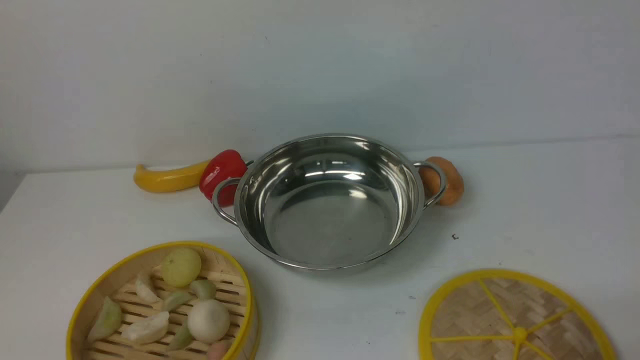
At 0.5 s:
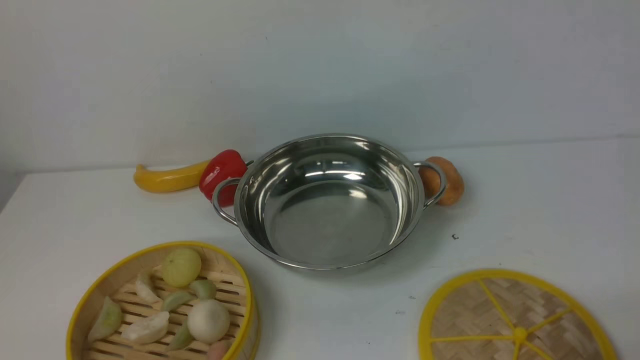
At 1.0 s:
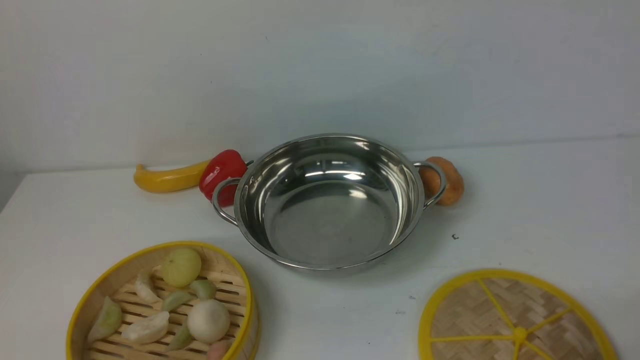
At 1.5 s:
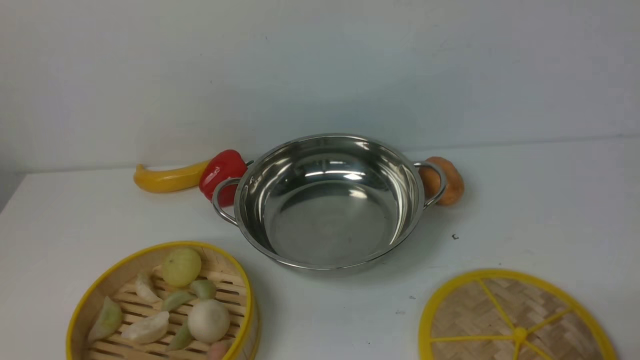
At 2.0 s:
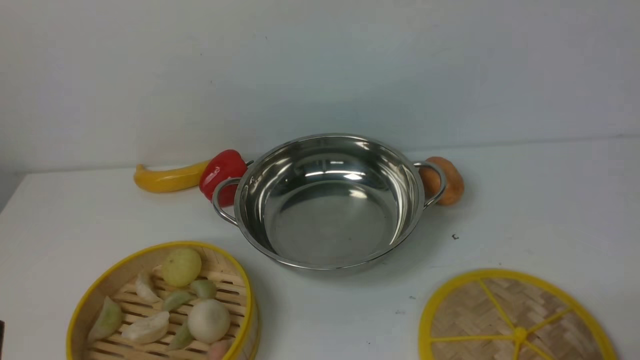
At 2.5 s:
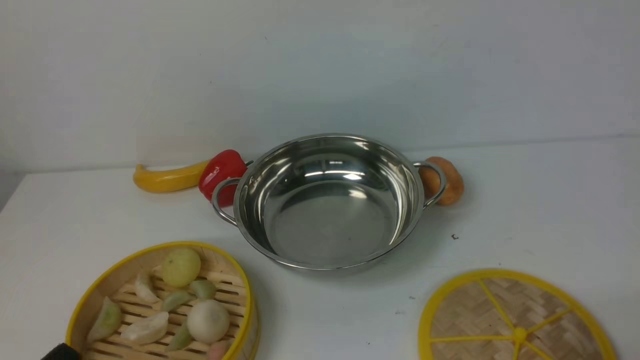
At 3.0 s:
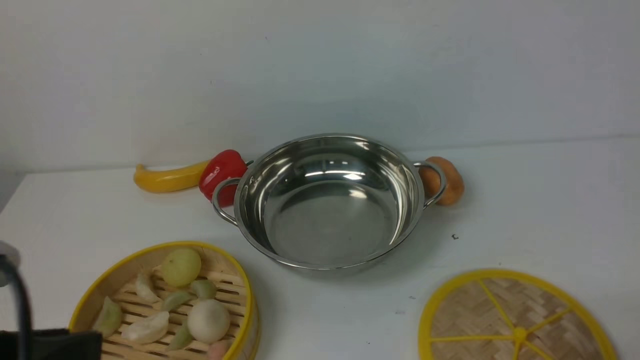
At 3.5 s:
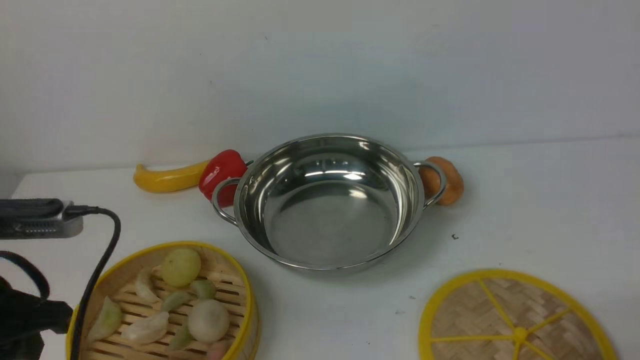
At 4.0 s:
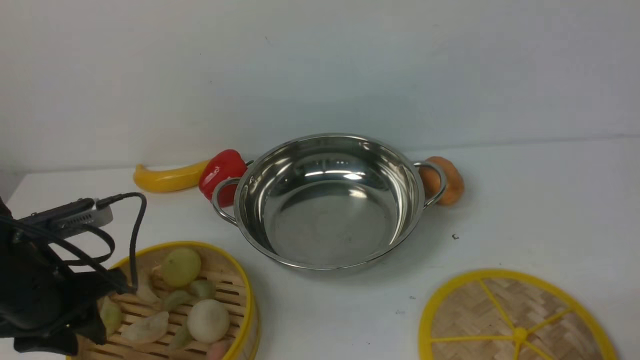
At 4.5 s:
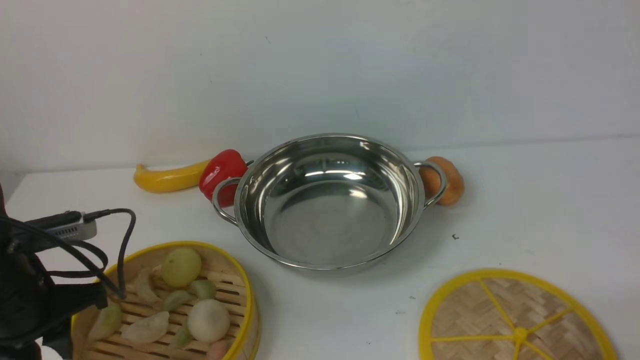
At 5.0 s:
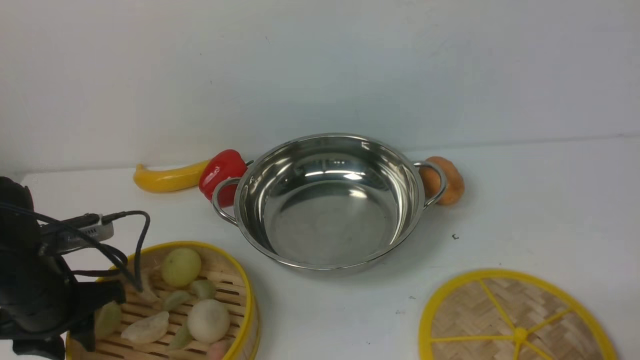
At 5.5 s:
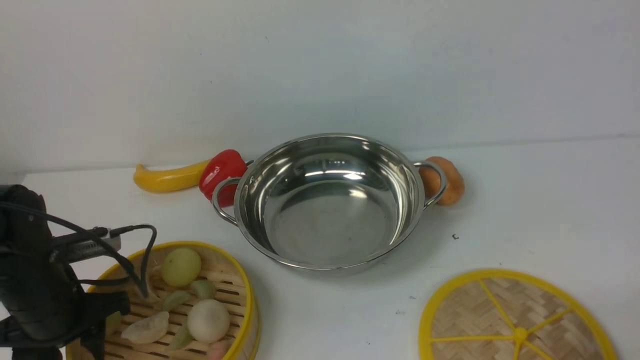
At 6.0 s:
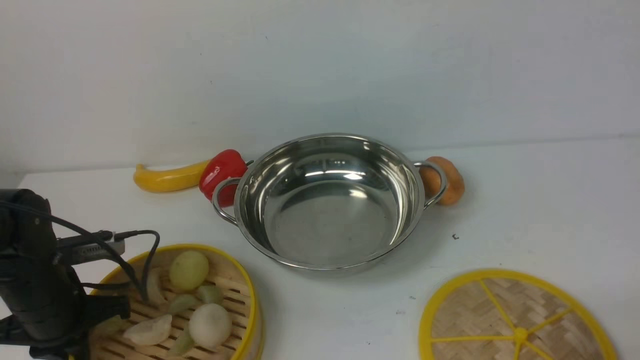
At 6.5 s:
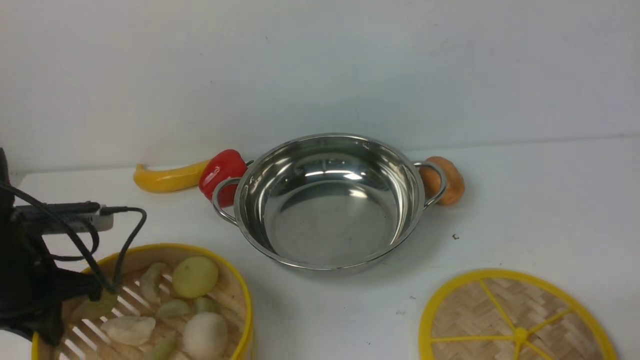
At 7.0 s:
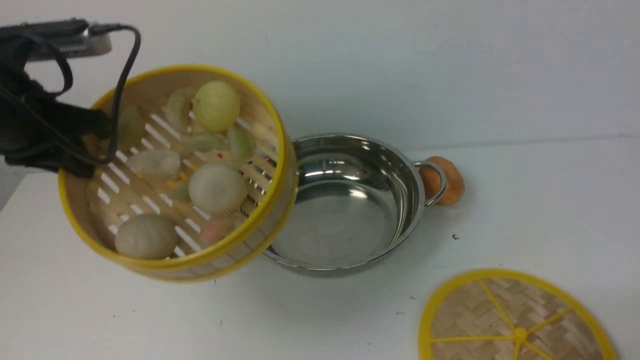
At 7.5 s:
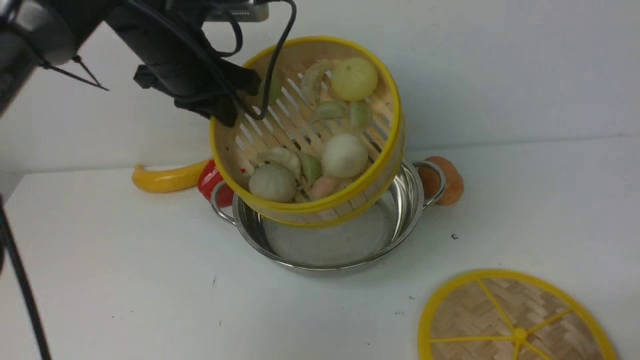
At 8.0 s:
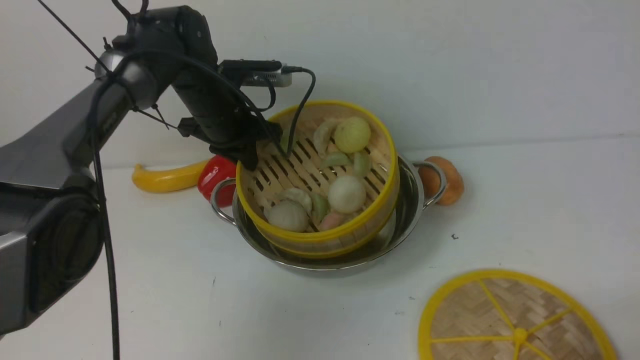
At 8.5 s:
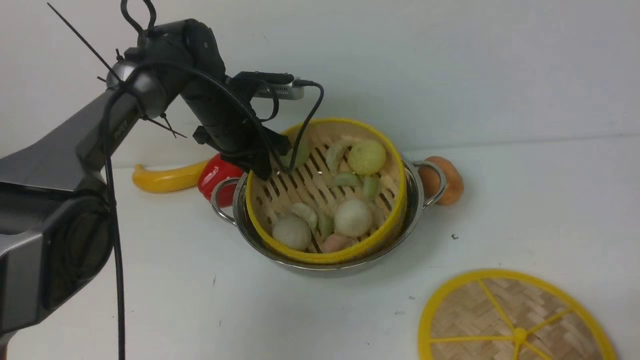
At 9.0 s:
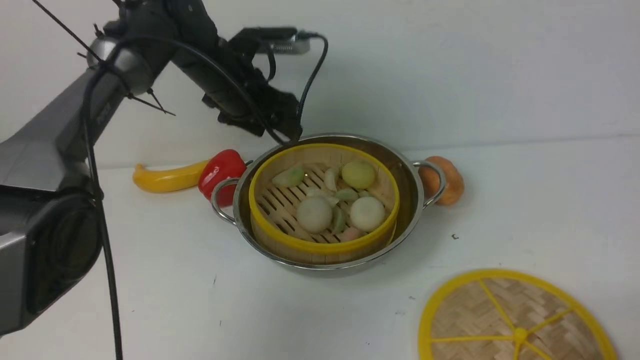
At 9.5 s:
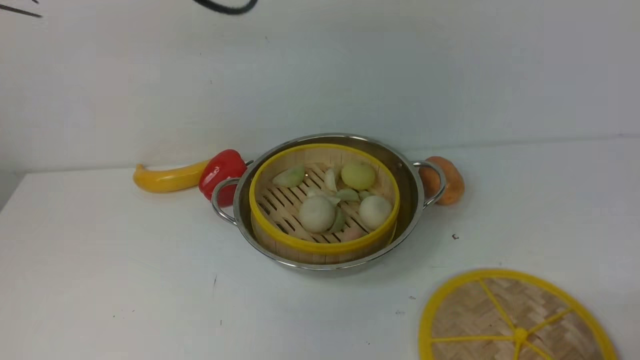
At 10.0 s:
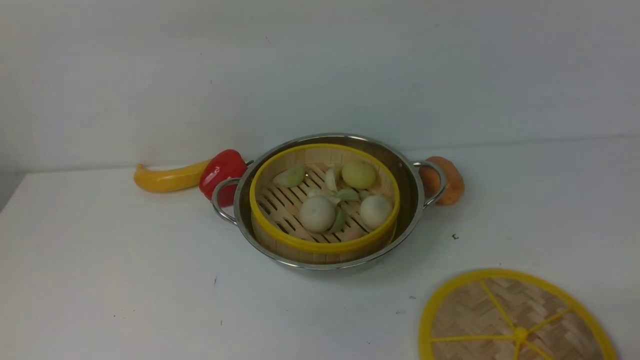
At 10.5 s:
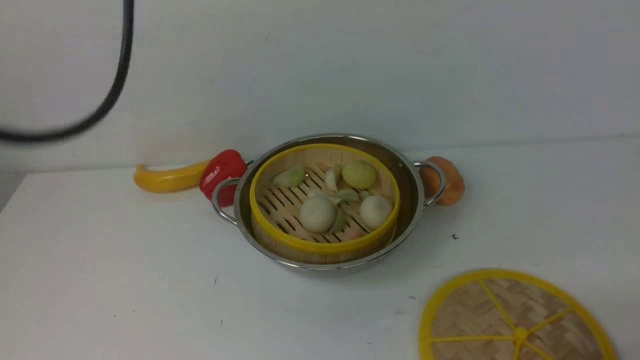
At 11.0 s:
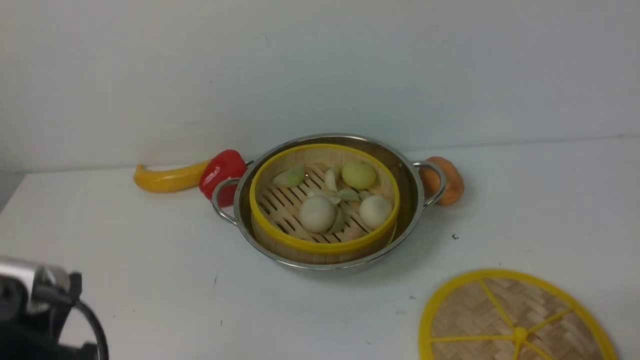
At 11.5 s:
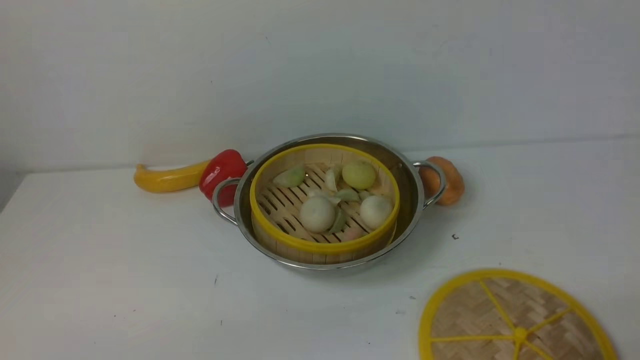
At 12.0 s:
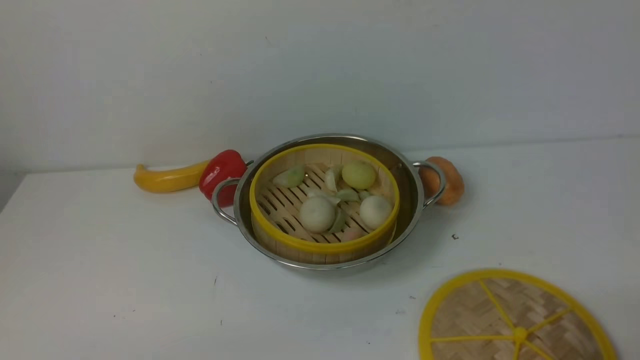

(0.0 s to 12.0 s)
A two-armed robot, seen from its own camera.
Task of the whole recording: place the steamer in the pot on the white table, and put the lid on the steamer.
Step, 0.0 s - 7.0 s: use the left arm to lift the steamer closest to it.
Step, 7.5 s - 9.0 s: use the left arm to put the steamer into the iron steamer pot in the middle.
2.0 s - 4.0 s: The left gripper heads forward, covering roughly 20 cm.
4.0 s - 6.0 s: The left gripper goes about 5 cm downward, and closes up.
6.0 s - 8.0 s: The left gripper travels forward and to the right by roughly 25 cm.
8.0 s - 10.0 s: The left gripper shifts approximately 30 cm upward and backward, and opens and closes again.

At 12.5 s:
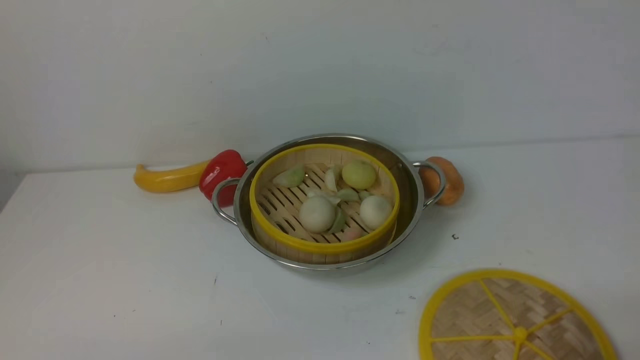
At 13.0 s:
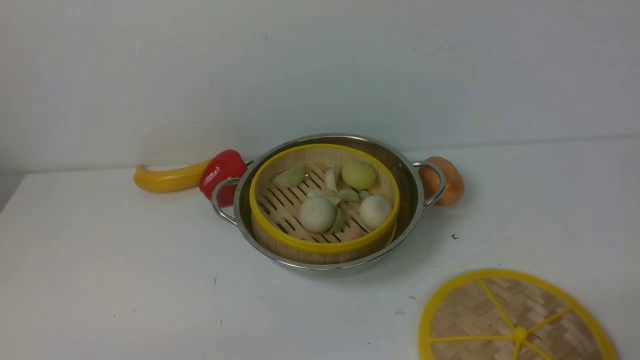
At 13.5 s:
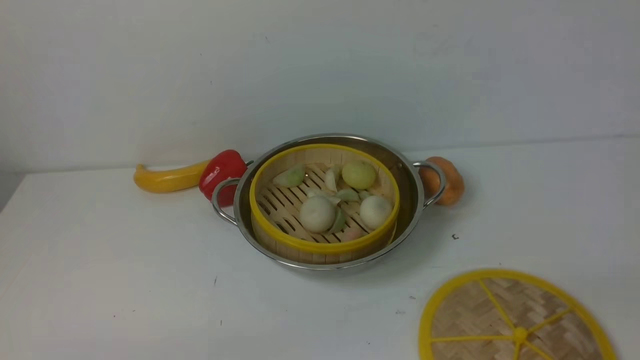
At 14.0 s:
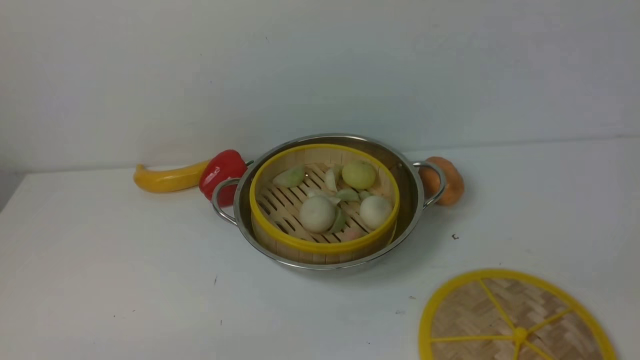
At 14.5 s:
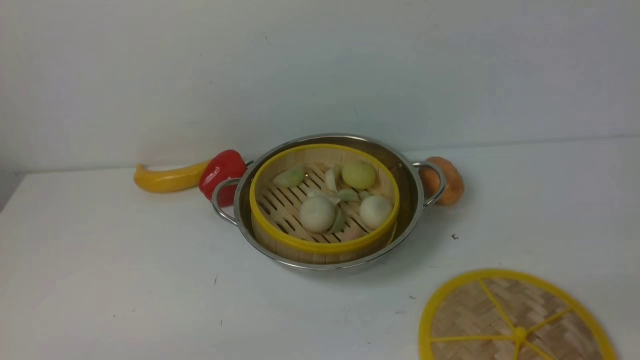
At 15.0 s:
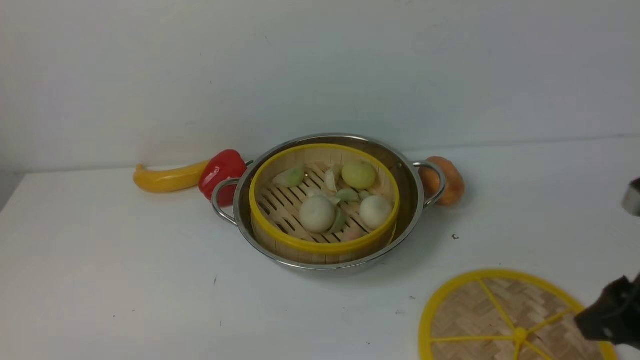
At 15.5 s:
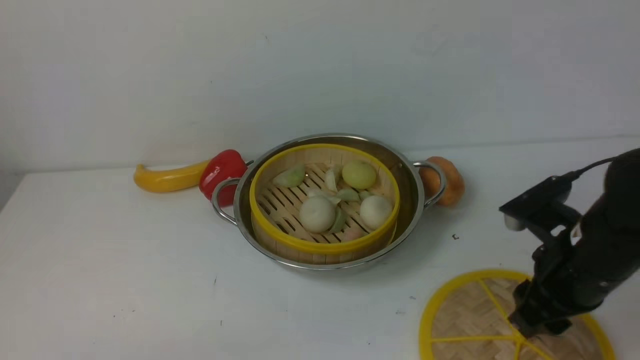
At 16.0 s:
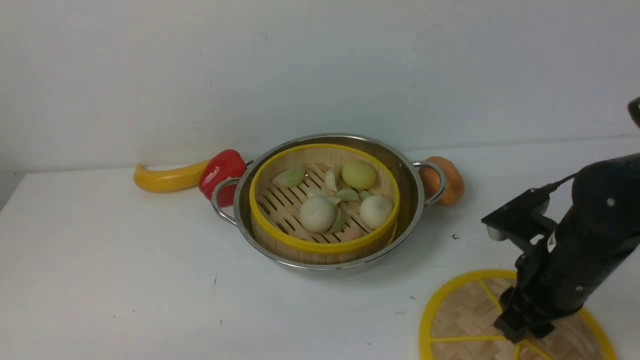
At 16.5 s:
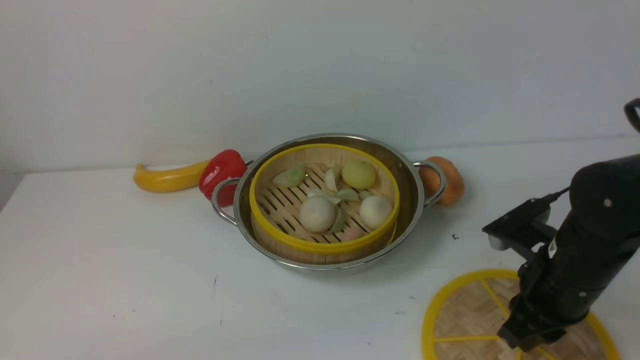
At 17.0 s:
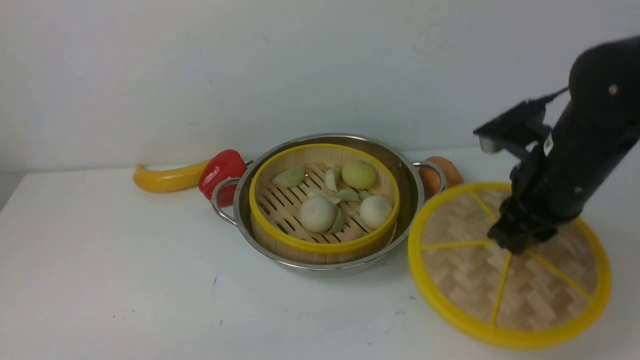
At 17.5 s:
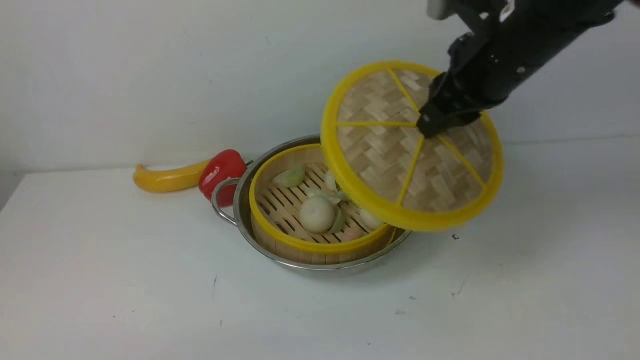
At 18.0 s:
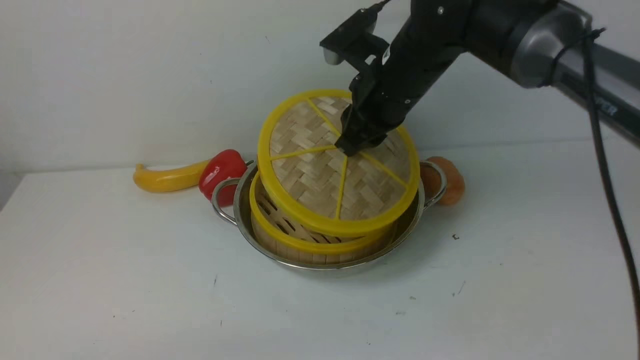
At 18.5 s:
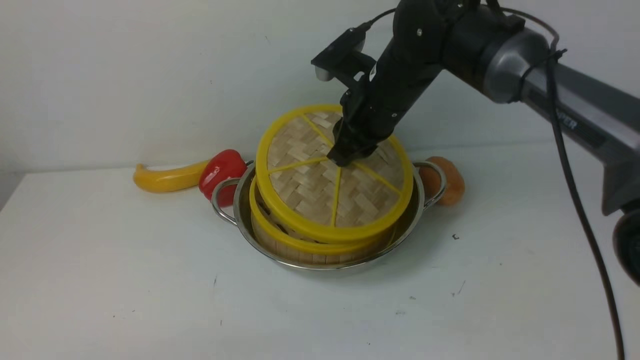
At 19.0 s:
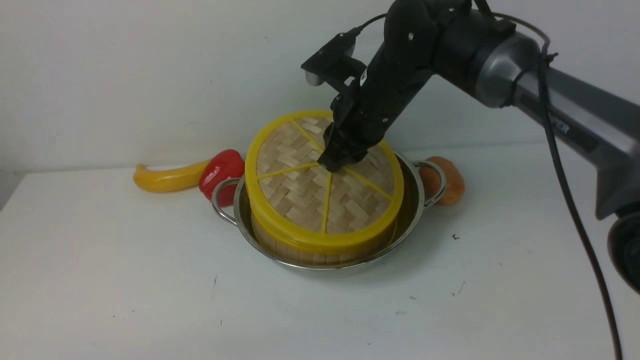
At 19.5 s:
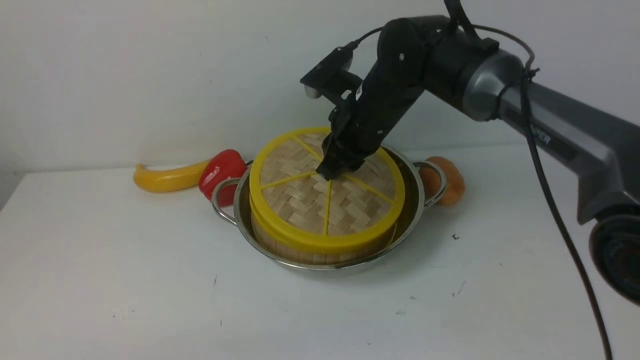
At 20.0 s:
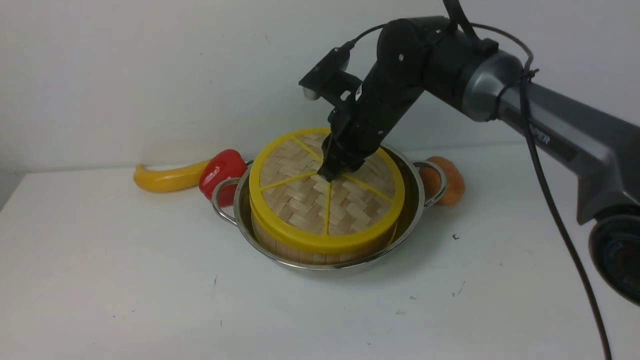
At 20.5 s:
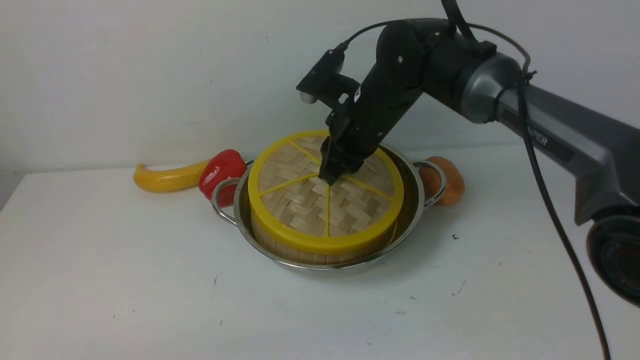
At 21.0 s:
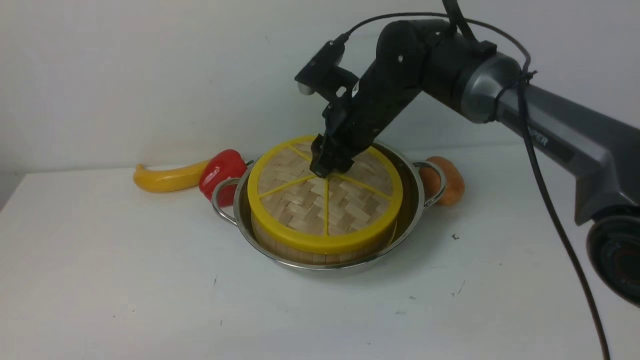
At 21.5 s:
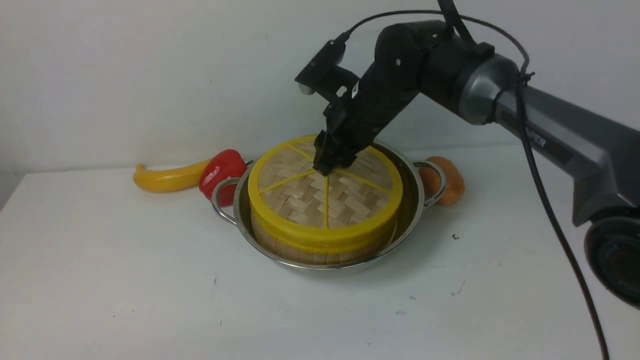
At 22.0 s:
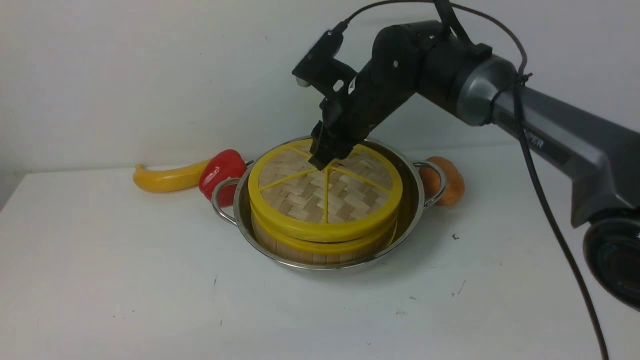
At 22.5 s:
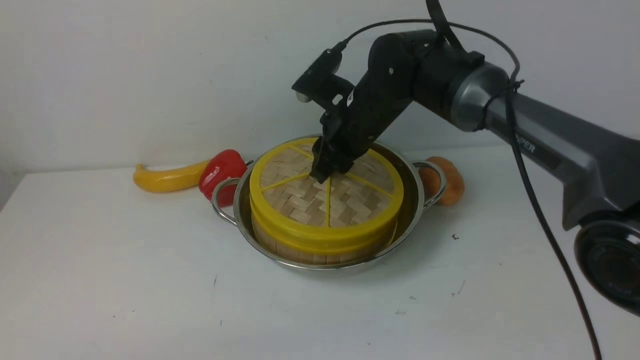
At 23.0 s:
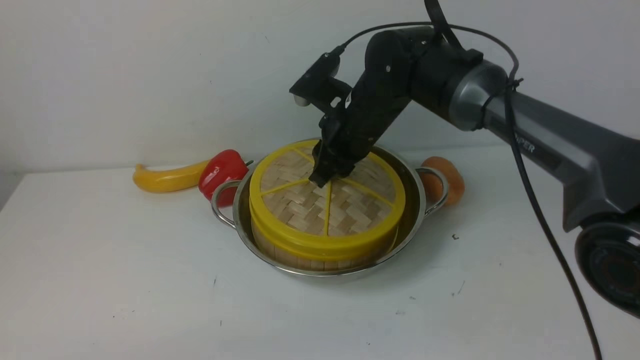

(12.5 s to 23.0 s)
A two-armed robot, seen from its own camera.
Task of the whole recording: place the steamer in the pot on the white table, and put the lid on the steamer.
Step, 12.5 s - 17.0 s: use the right arm to lift the lid of the steamer.
14.5 s - 16.5 s: The right gripper moves forward and downward, approximately 25 cm.
16.5 s - 19.0 s: The right gripper heads to the left, forward and upward, covering some 25 cm.
19.0 s - 21.0 s: The right gripper opens.
21.0 s - 23.0 s: The grippers move only a little.
